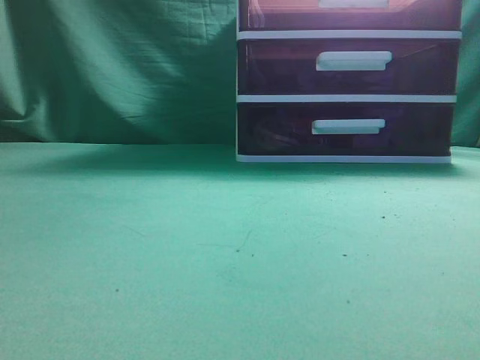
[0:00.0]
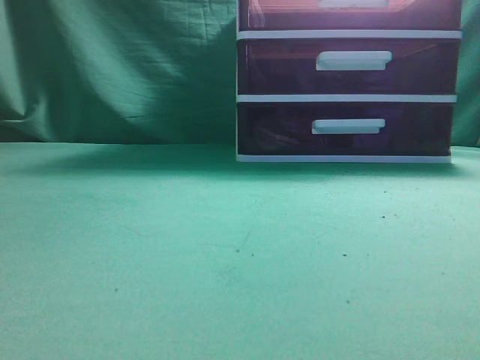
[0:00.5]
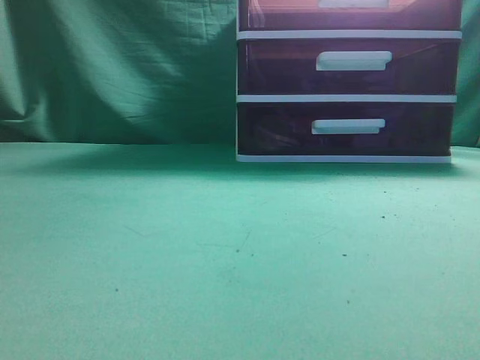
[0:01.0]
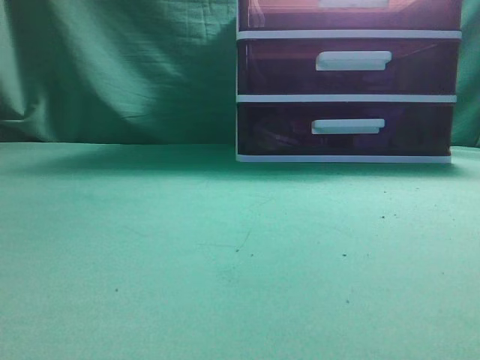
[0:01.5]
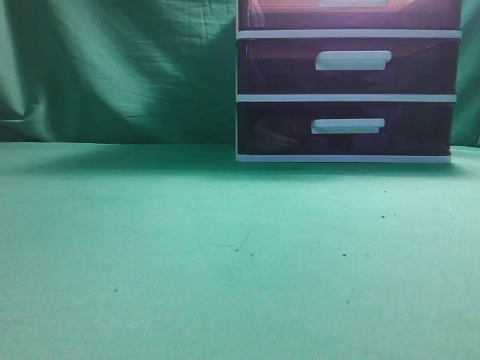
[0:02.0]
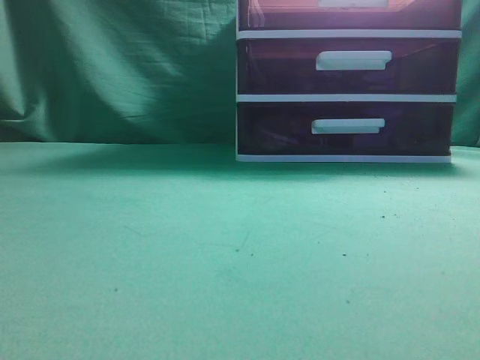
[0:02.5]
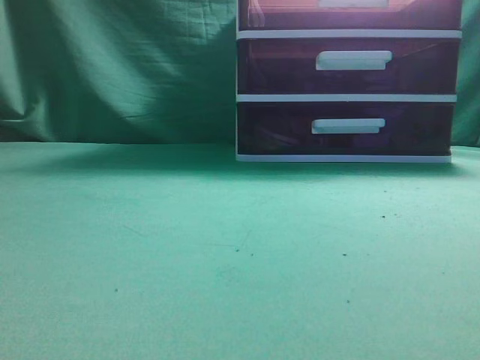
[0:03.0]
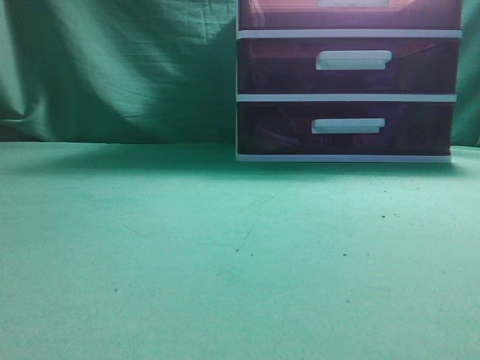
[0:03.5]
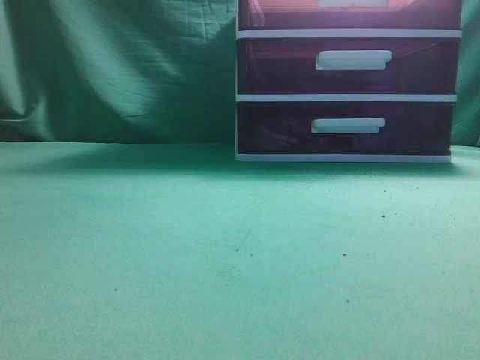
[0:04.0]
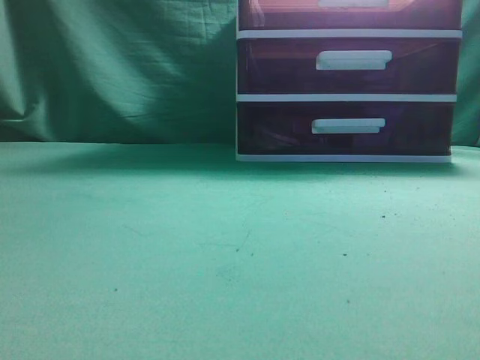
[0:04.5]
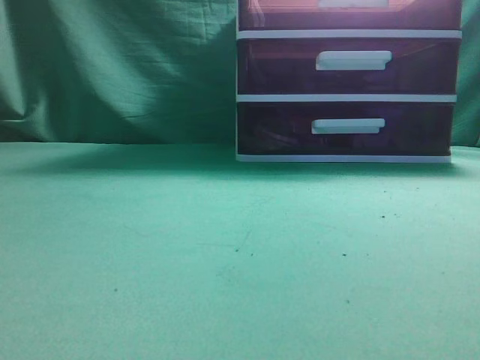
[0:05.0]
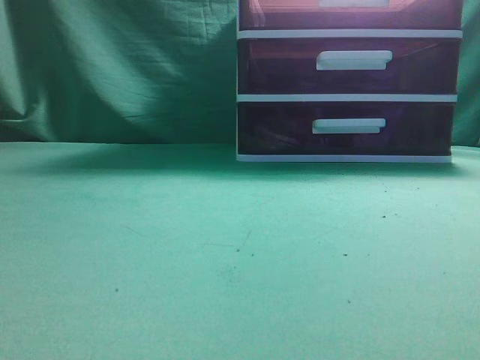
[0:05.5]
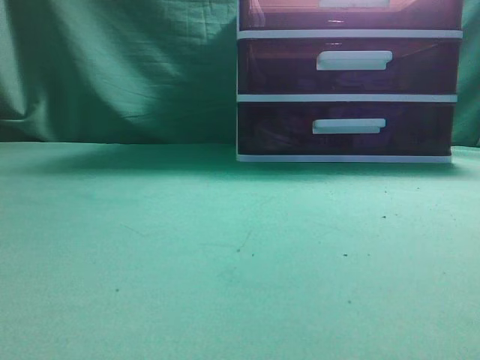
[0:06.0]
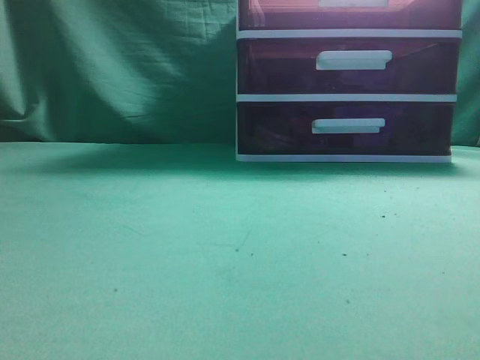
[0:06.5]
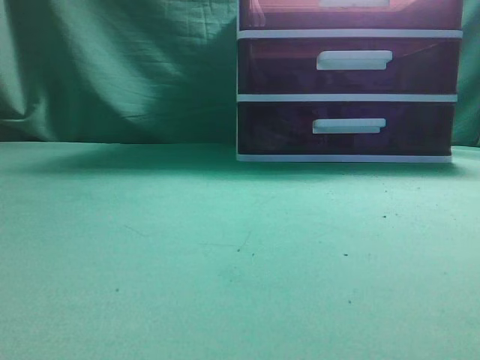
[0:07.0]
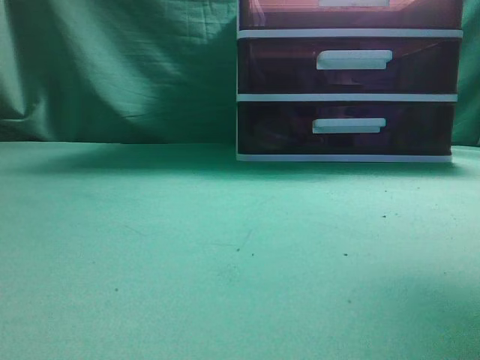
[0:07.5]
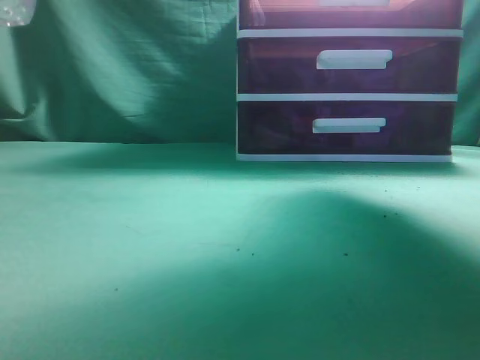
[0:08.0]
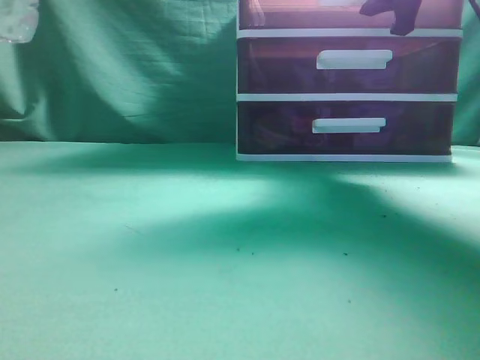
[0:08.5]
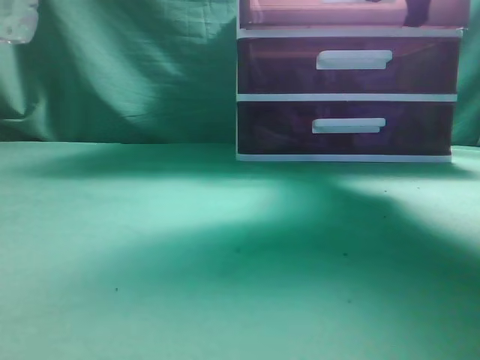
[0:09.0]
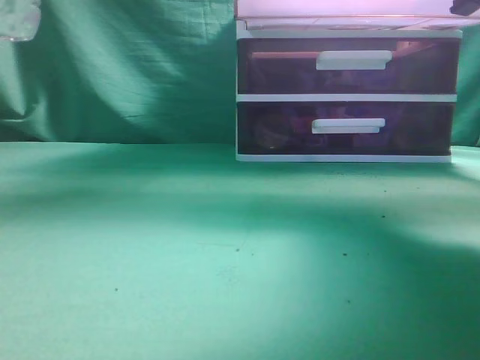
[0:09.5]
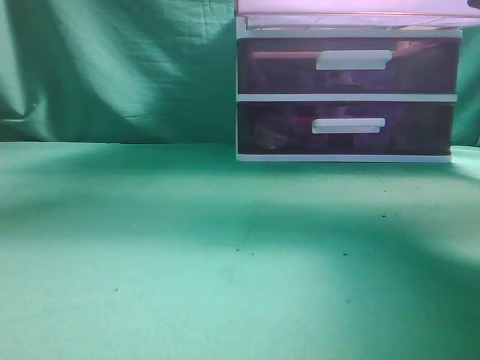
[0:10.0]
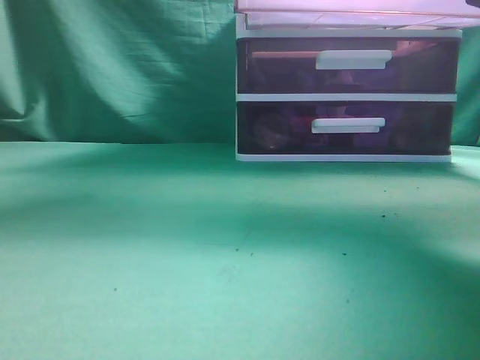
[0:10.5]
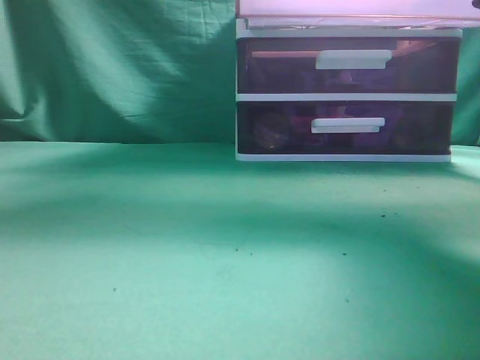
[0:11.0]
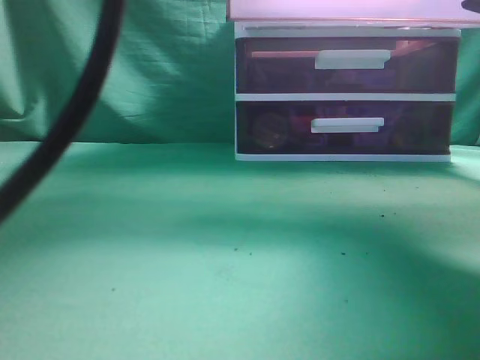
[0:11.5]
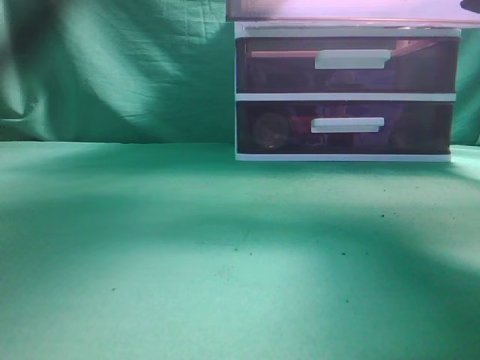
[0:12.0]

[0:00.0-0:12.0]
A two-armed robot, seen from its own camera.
Task of the whole recording: place the water bottle into the drawer.
Step, 0:00.0 to 0:10.0: Open the drawer.
0:06.0 to 0:08.0: The right gripper travels forward by about 35 cm, and opens its fingers.
0:08.0 to 0:10.0: The right gripper is displaced backward by approximately 10 cm, and closes its fingers.
0:10.0 to 0:12.0: The left gripper travels to the right and forward by about 30 cm.

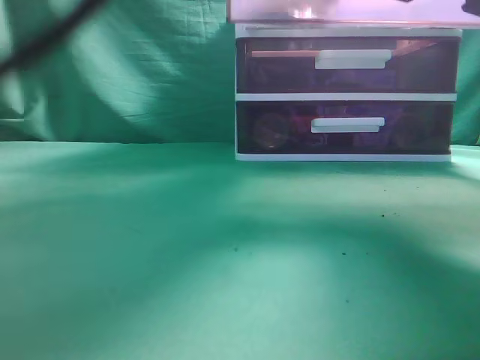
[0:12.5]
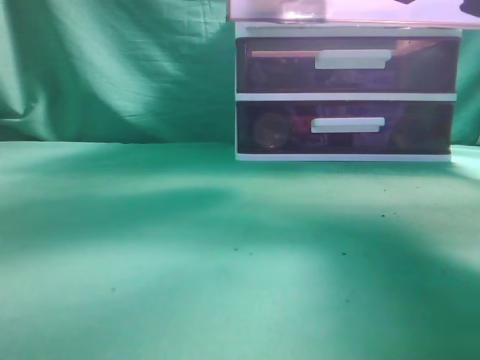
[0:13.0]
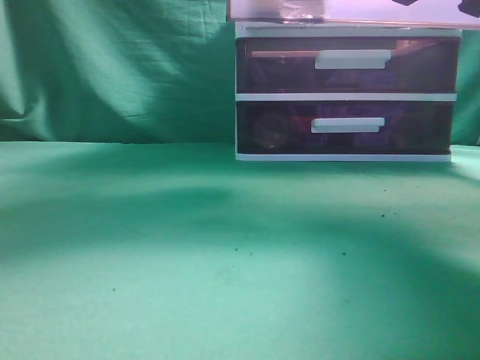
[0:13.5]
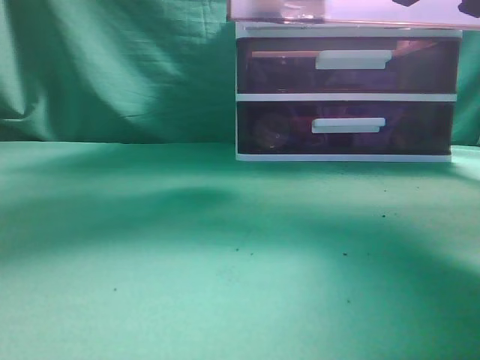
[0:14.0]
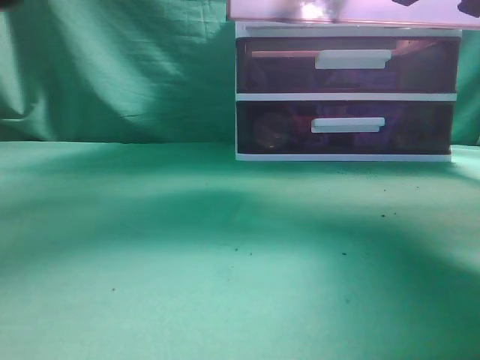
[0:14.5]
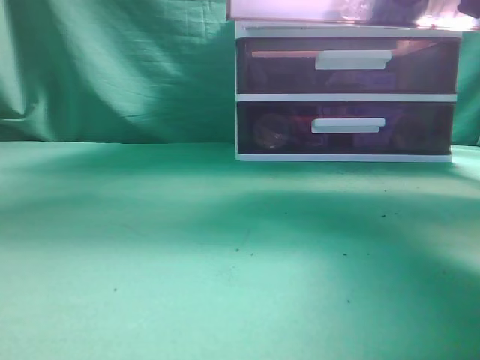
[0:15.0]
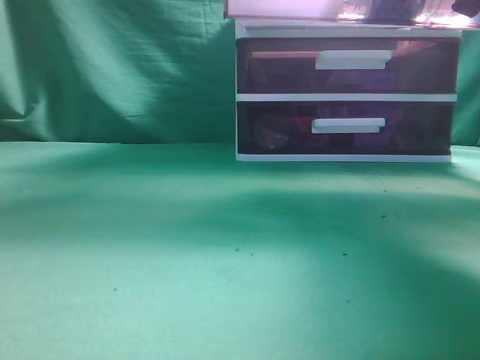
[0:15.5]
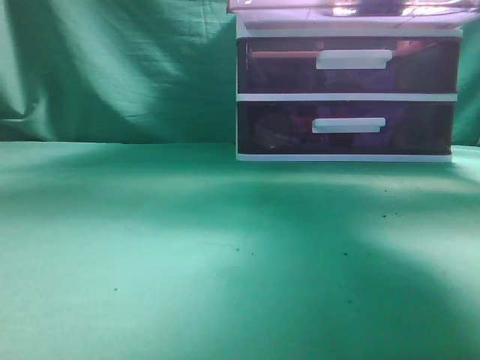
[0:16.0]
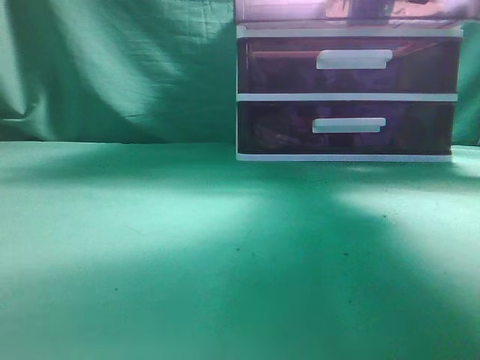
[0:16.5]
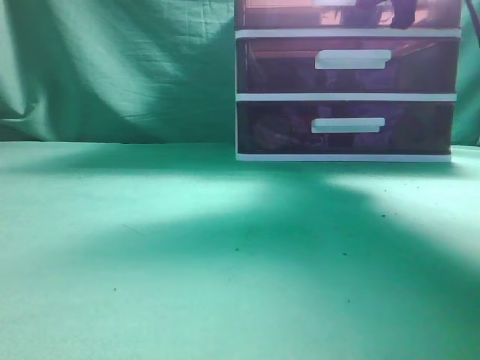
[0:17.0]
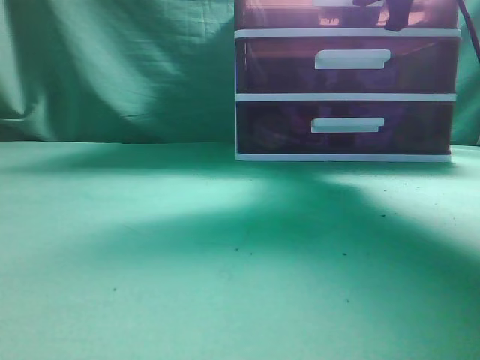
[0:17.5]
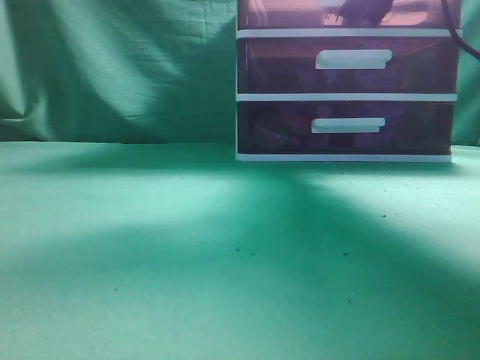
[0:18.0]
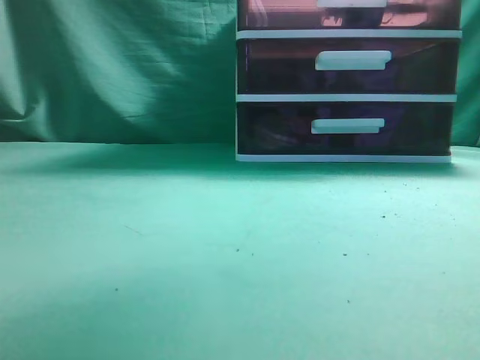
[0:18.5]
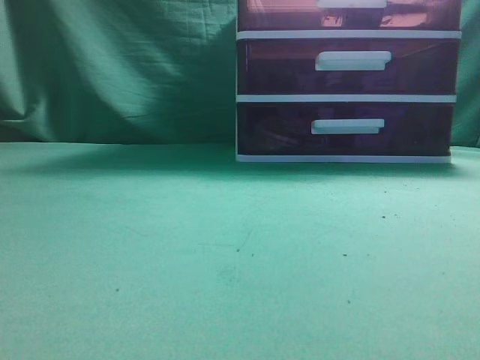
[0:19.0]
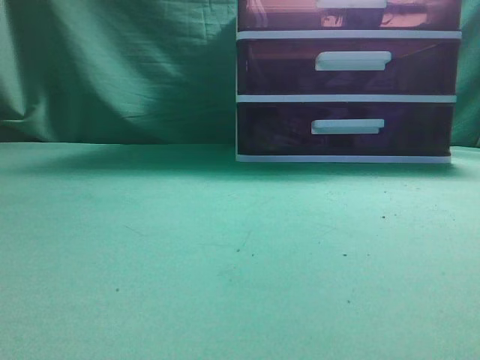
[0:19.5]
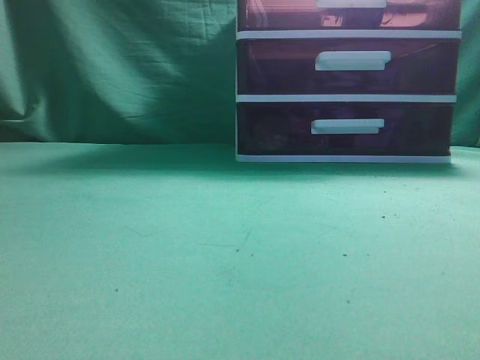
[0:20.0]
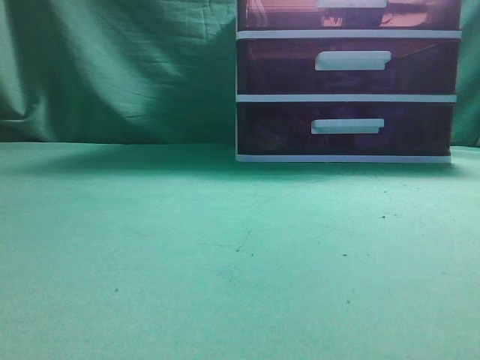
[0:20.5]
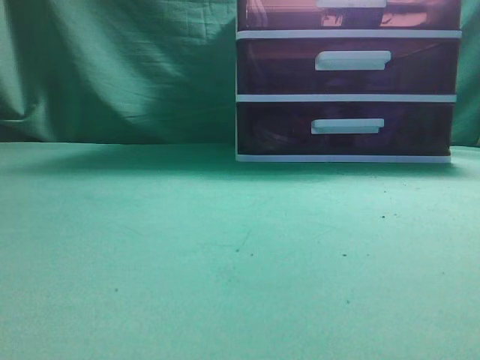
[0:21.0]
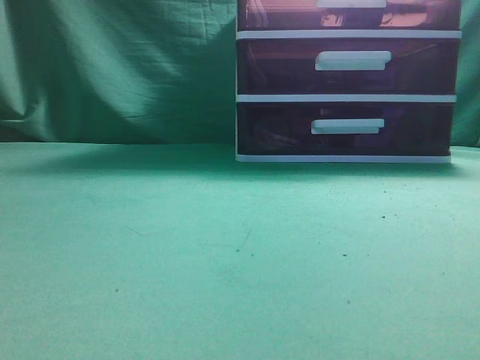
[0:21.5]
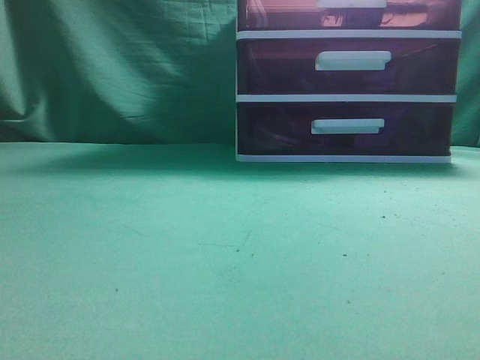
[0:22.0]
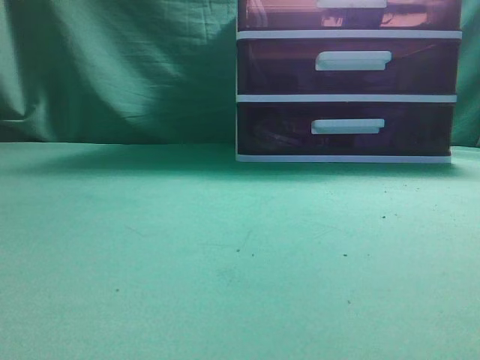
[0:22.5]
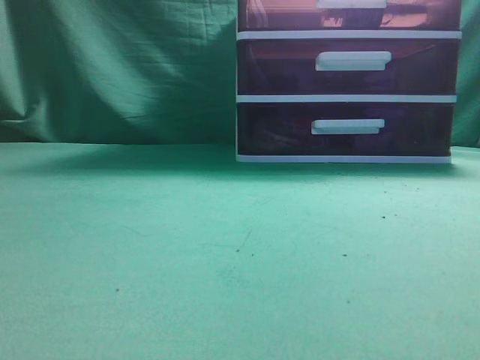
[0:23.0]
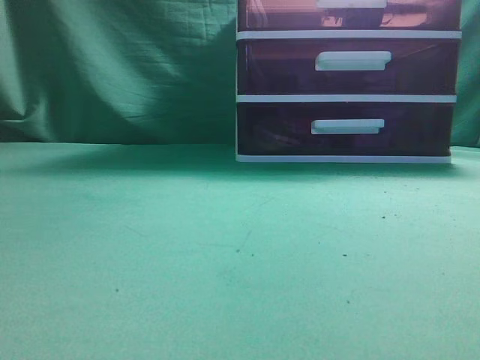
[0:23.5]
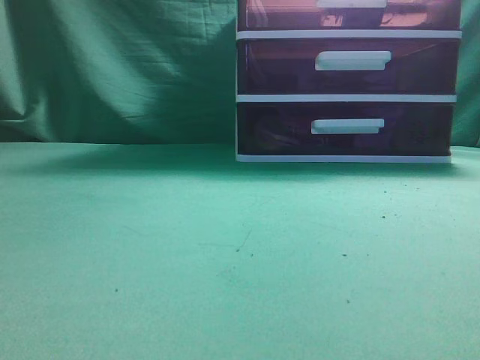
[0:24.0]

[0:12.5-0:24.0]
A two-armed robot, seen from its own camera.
Task of the whole recording: place the water bottle into the drawer.
Step, 0:12.5 to 0:15.5: Place the water bottle inside the drawer.
Step, 0:16.0 to 0:18.0: Close the drawer.
0:12.5 to 0:14.5: The left gripper reaches roughly 10 cm upward, then returns, and closes.
0:14.5 to 0:16.5: The right gripper goes roughly 10 cm forward. The left gripper moves backward and to the left, approximately 35 cm.
0:16.5 to 0:18.5: The right gripper is displaced backward and upward by approximately 10 cm, and opens its fingers.
0:18.5 to 0:20.0: The right gripper heads backward, covering about 30 cm, and closes its fingers. The left gripper travels downward, backward and to the left by roughly 15 cm.
